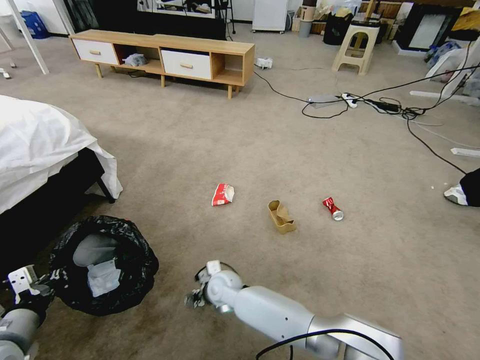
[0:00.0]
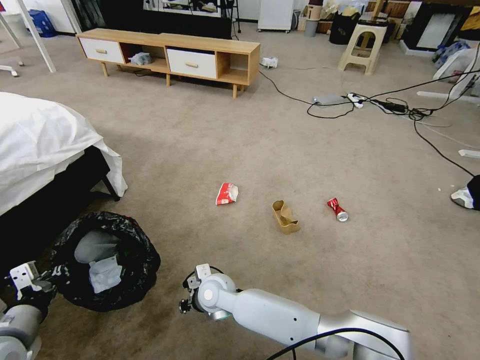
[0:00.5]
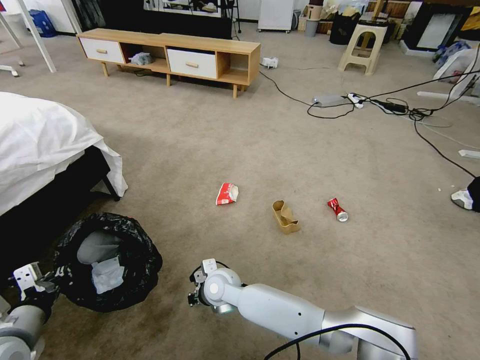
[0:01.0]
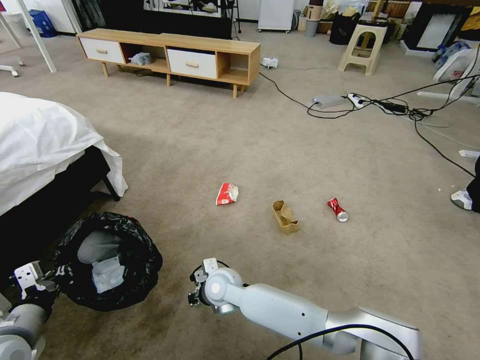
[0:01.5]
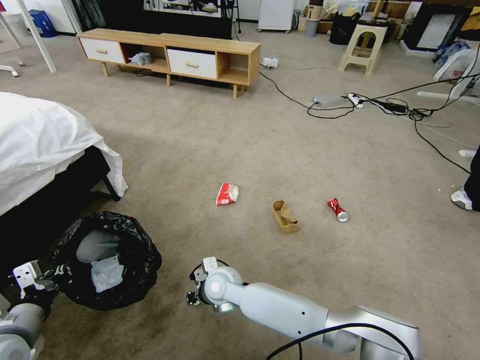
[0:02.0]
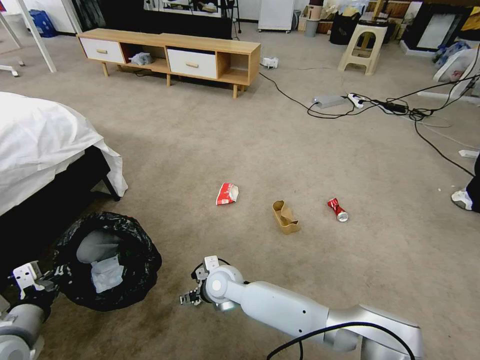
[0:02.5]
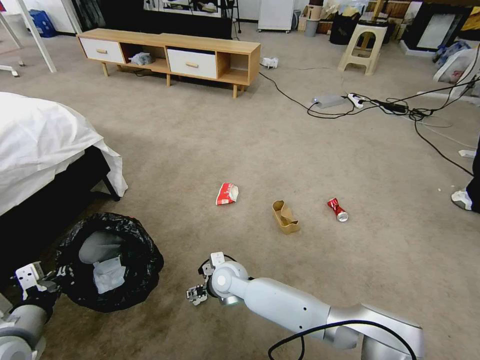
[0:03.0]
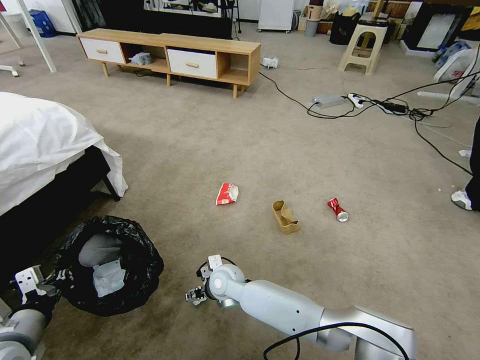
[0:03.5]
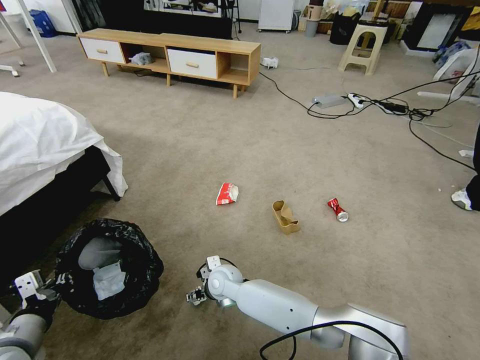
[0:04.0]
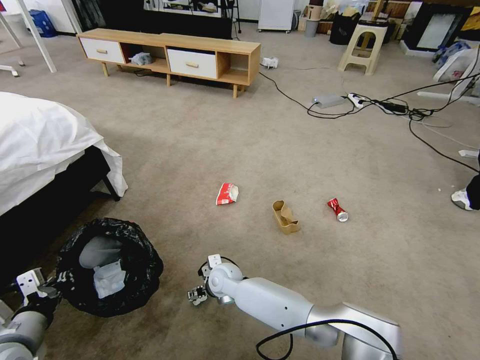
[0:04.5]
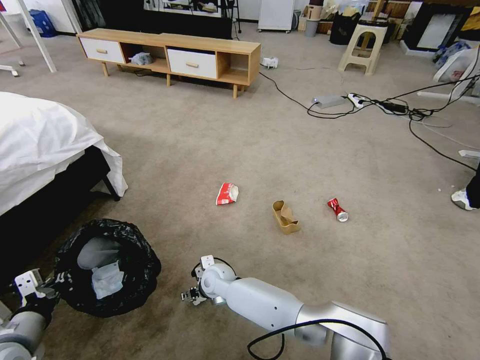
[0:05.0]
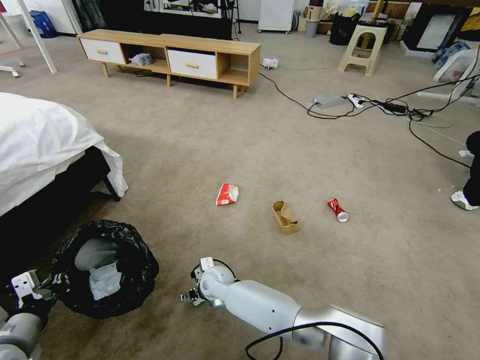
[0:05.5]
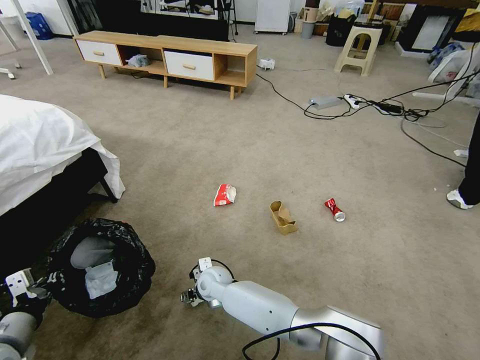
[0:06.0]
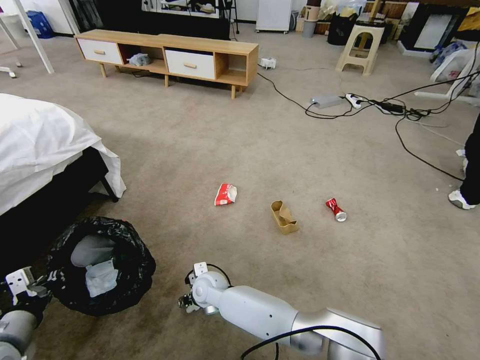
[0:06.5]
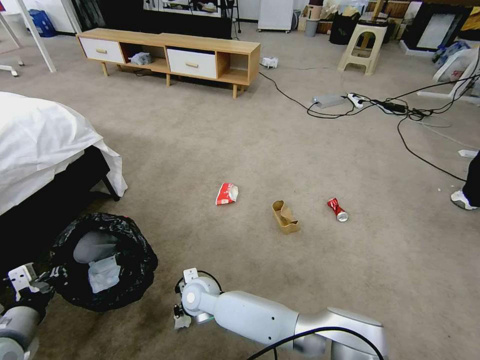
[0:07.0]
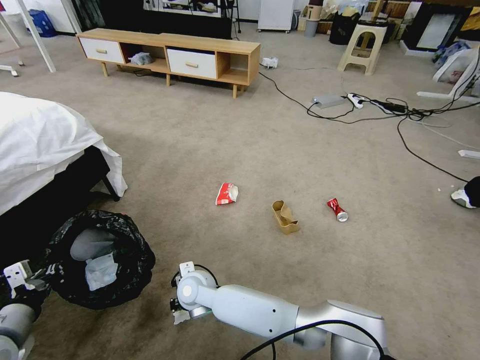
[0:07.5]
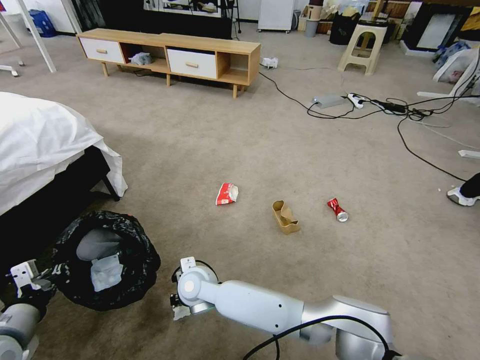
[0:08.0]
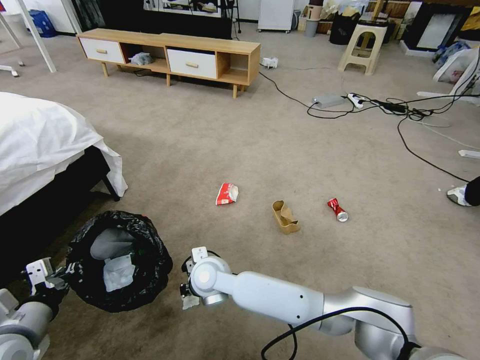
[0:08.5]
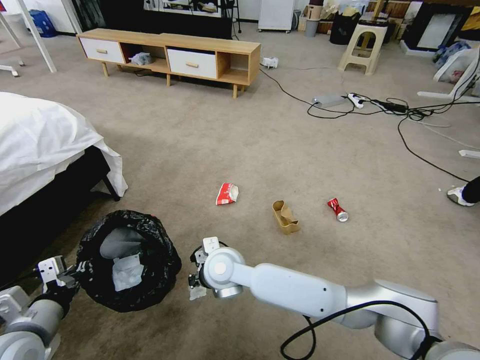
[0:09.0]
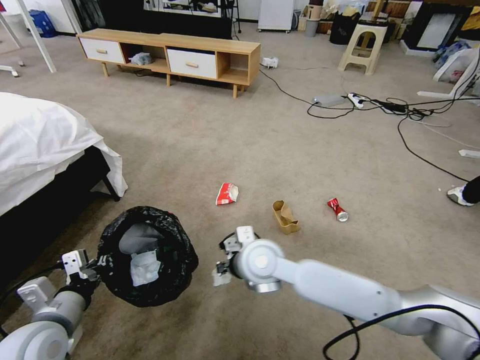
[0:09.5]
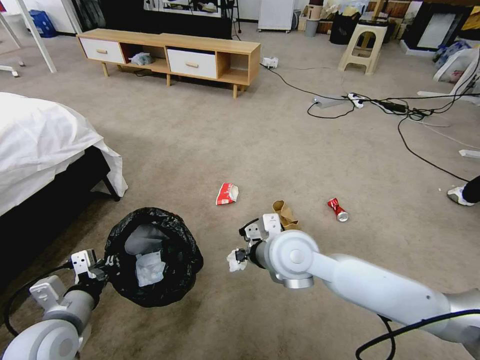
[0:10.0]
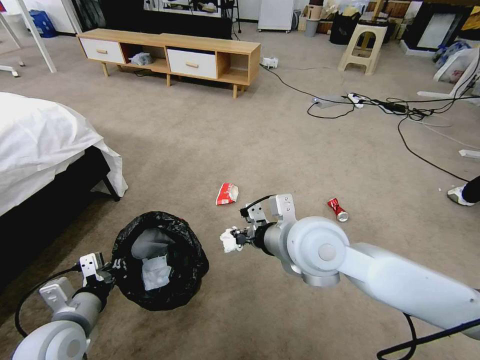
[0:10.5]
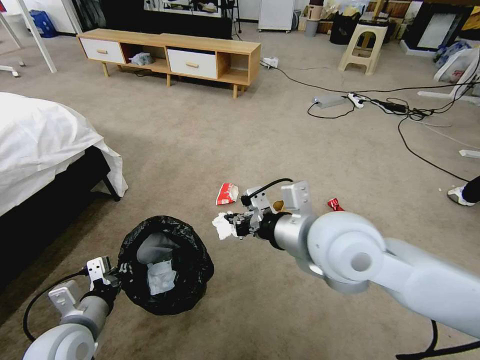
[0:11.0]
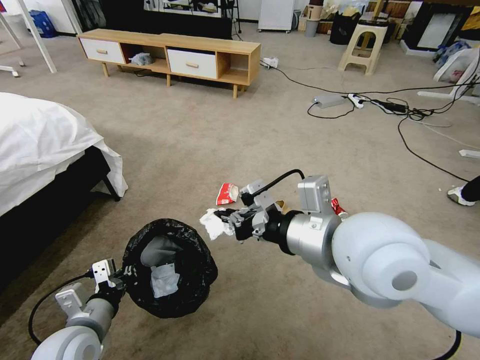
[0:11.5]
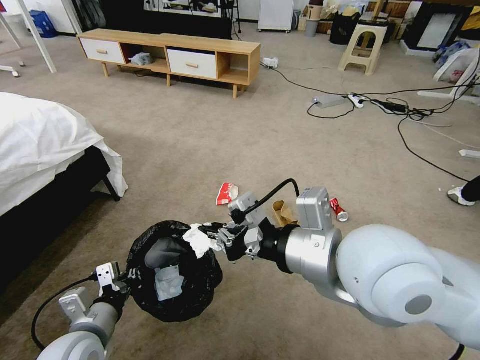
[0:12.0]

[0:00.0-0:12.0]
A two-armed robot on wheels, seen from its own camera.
Task of the whole recording: Pick up the trash bin, then pick up the garbage from the floor and place it into the trash bin.
0:00.0 to 0:02.0: The right gripper shifts approximately 5 cm upward, and closes its fingers.
0:02.0 to 0:04.0: The right gripper opens up.
0:04.0 to 0:06.0: The grippers move only a little.
0:06.0 to 0:08.0: The right gripper shifts approximately 10 cm upward, and closes its fingers.
0:08.0 to 0:10.0: The left gripper heads to the right, covering approximately 10 cm. The right gripper goes some 25 cm to the right and upward.
0:10.0 to 0:12.0: The left gripper changes place by some 5 cm. The right gripper moves upward and backward, roughly 20 cm.

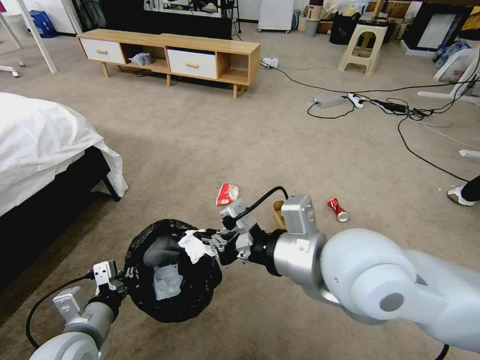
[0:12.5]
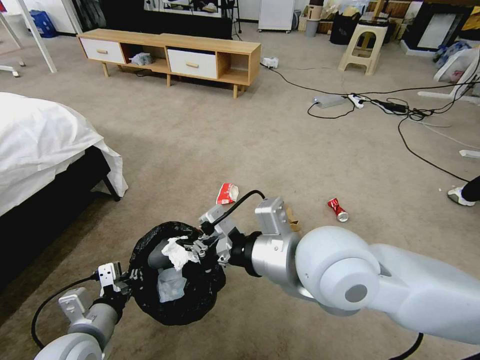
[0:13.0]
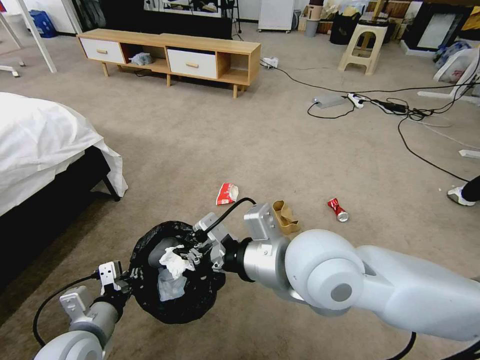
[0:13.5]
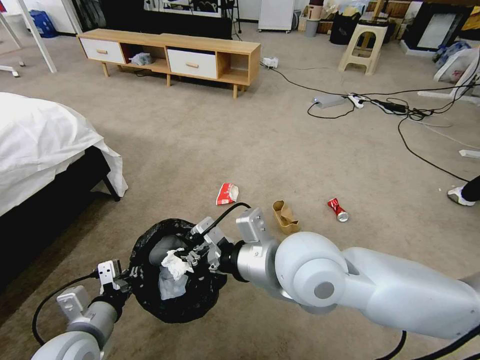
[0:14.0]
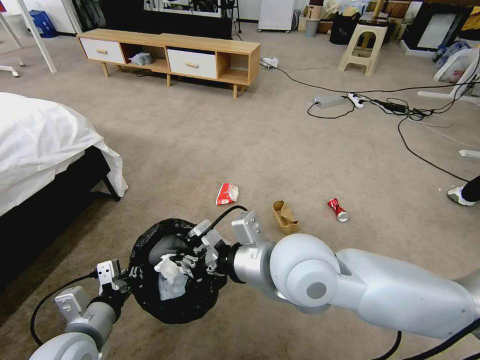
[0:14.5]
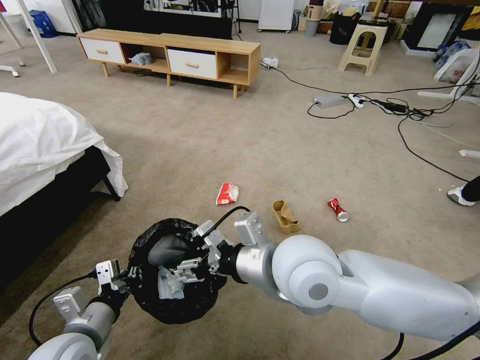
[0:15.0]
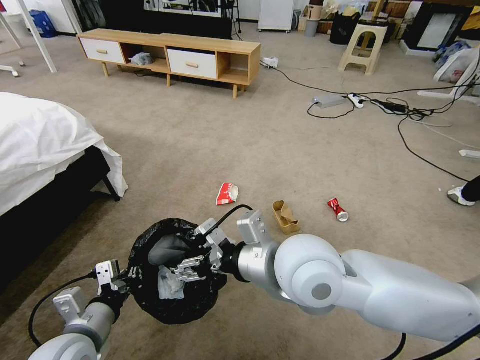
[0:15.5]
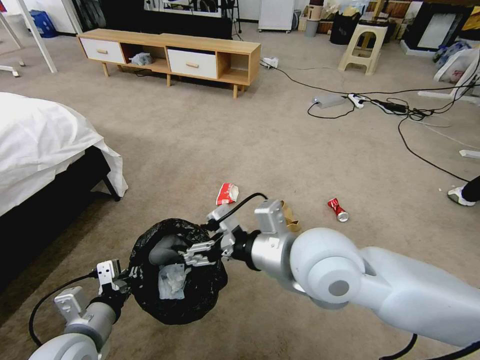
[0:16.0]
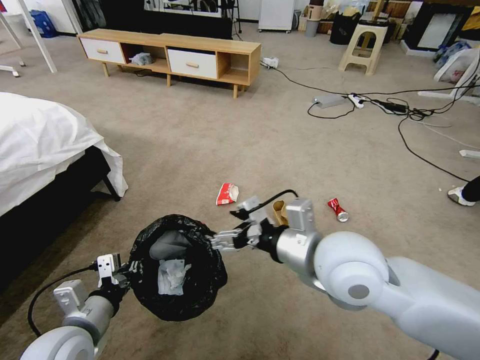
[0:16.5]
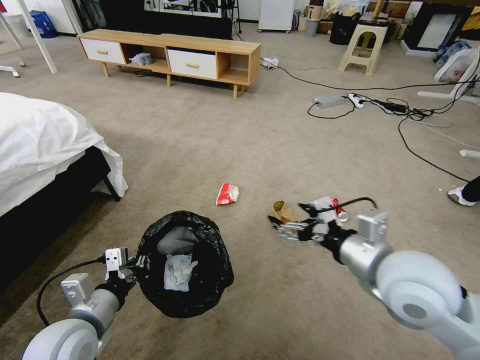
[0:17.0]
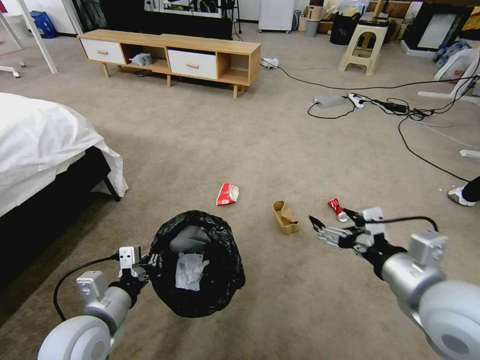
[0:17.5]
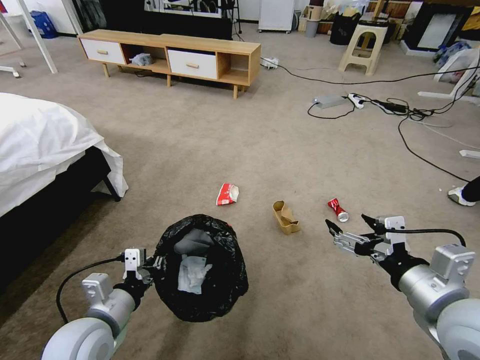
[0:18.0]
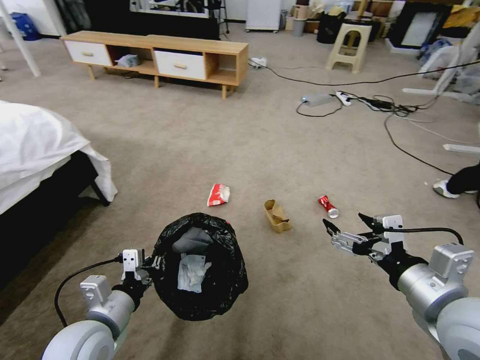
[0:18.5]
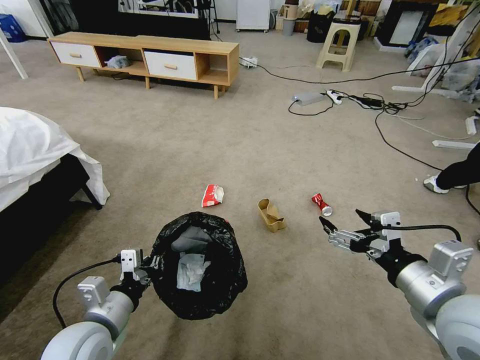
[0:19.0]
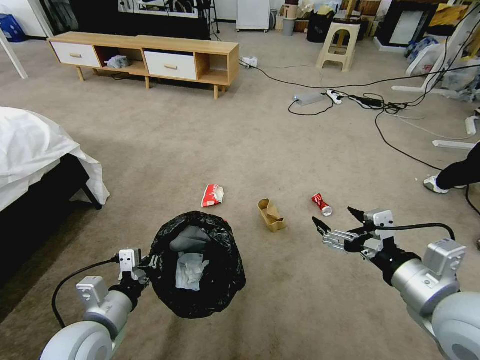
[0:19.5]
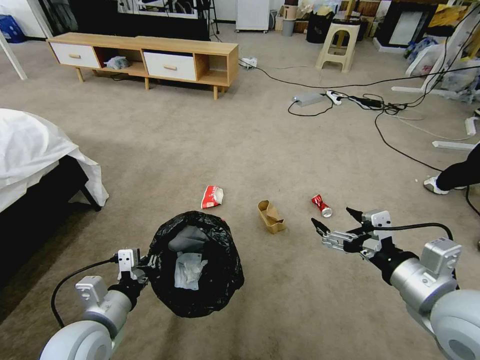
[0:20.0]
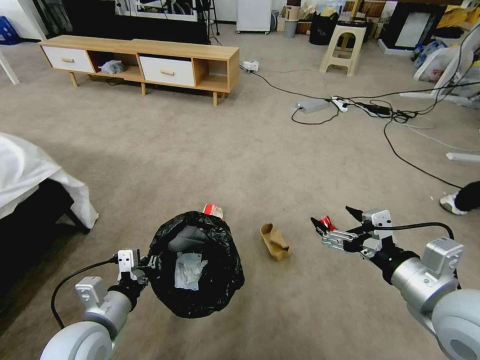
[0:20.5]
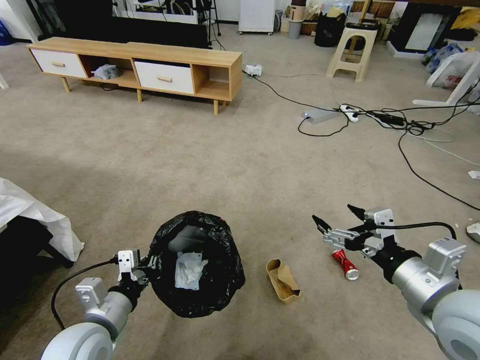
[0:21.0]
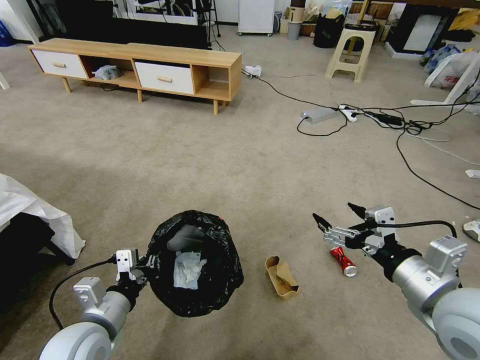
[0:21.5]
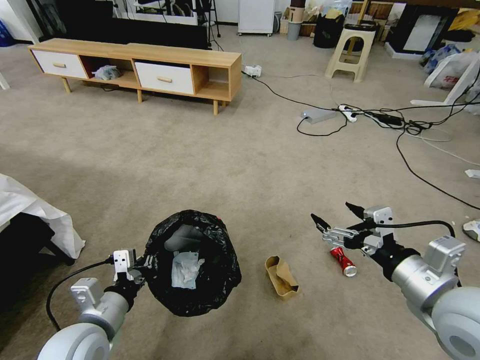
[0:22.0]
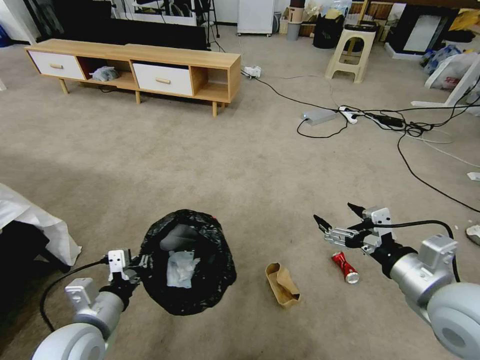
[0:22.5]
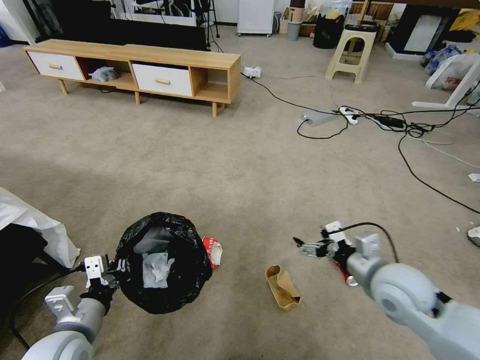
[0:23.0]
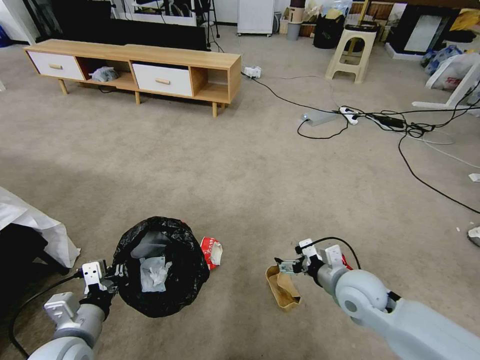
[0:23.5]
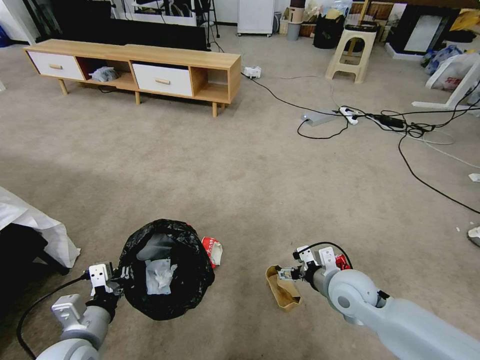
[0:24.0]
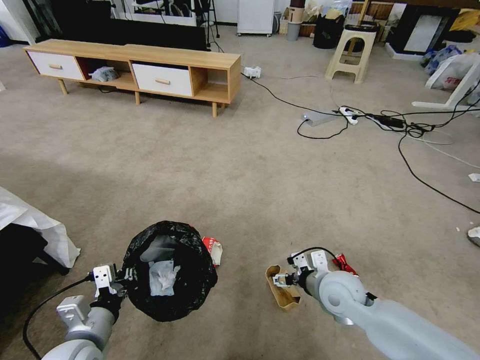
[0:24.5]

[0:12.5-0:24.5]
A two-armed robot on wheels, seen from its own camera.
Task of the whole recording: Pick up the trash bin, then pick up the garbage from the floor and place it into the trash bin.
0:12.5 to 0:14.5: The right gripper shifts approximately 10 cm to the left and downward.
0:14.5 to 0:16.5: The right gripper shifts approximately 5 cm to the right, and opens its fingers.
0:16.5 to 0:18.5: The right gripper moves to the right and backward, roughly 20 cm.
0:22.5 to 0:24.5: The right gripper goes approximately 20 cm downward, forward and to the left.

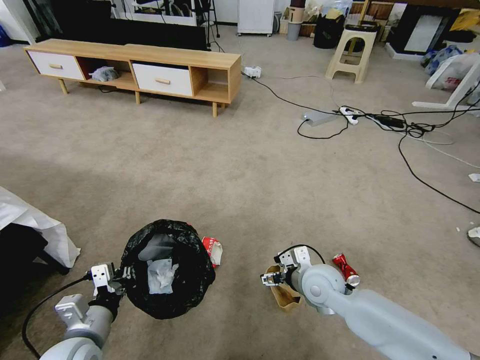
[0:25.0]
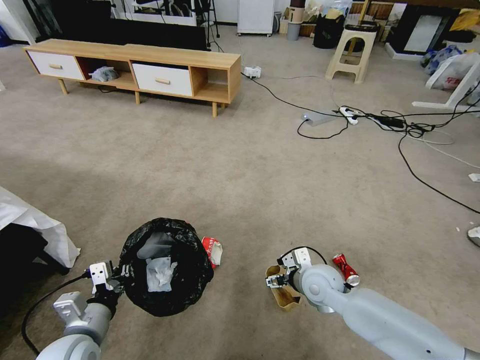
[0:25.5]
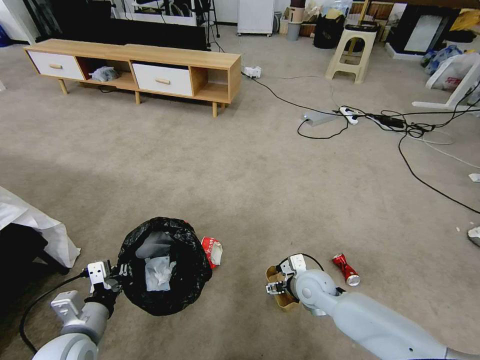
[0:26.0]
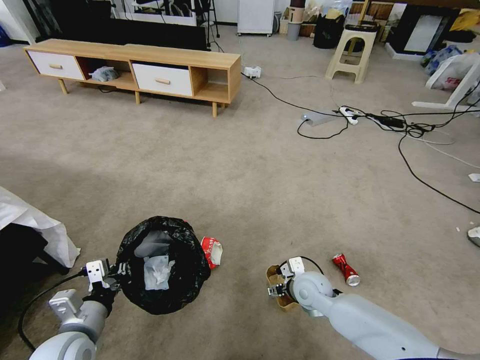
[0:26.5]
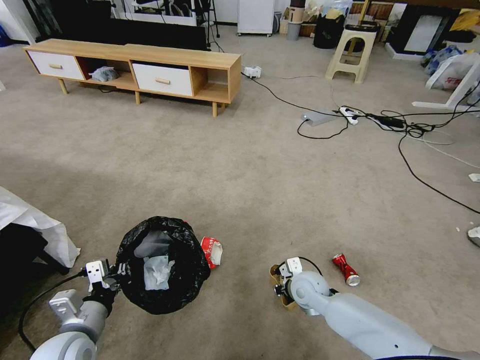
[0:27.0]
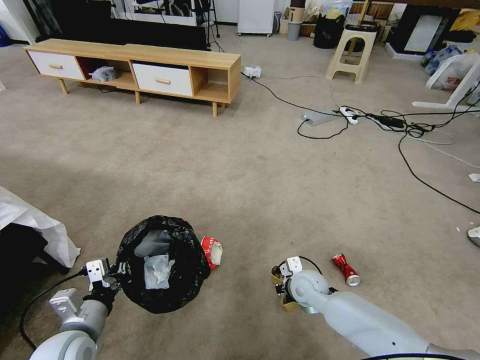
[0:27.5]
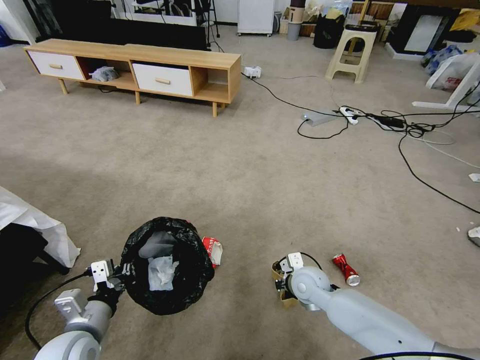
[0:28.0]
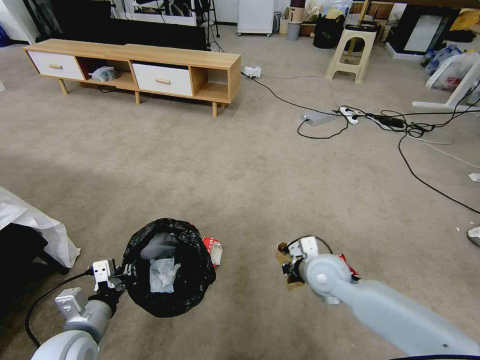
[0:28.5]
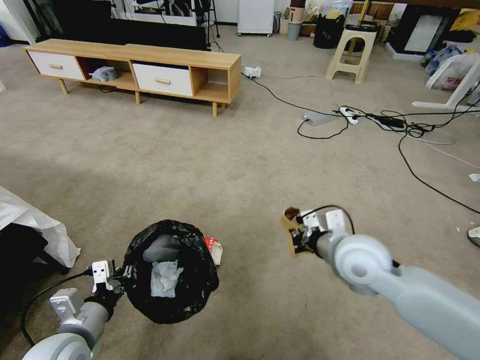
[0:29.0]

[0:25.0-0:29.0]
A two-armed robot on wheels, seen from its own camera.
Task of the whole recording: Pick up the trash bin, then pick up the garbage from the floor and place it into the trash bin.
0:25.0 to 0:27.0: The right gripper travels downward by some 10 cm, and closes its fingers.
0:27.0 to 0:29.0: The right gripper travels upward by approximately 20 cm.
